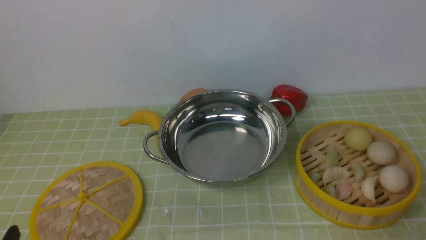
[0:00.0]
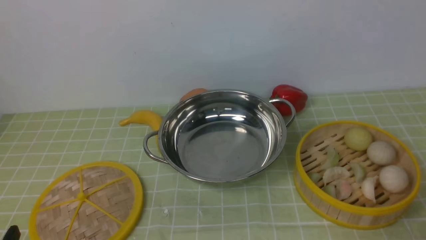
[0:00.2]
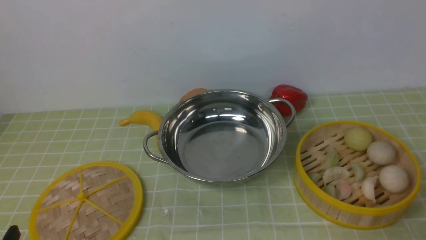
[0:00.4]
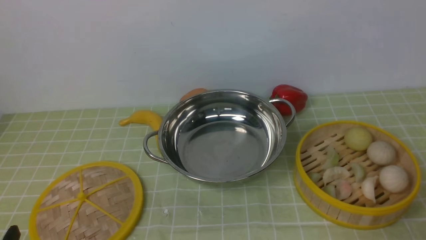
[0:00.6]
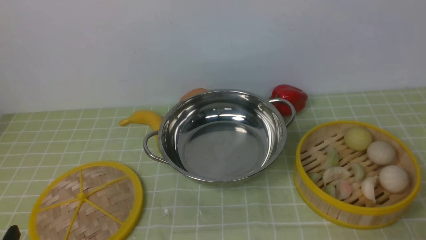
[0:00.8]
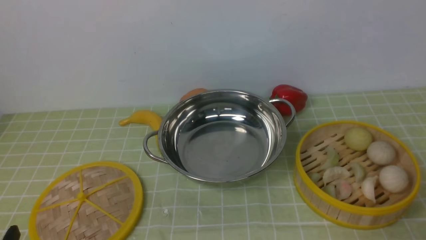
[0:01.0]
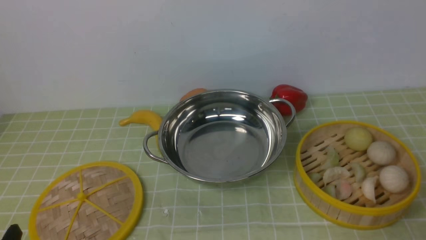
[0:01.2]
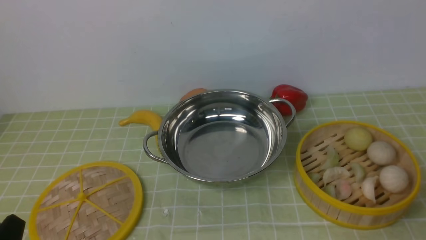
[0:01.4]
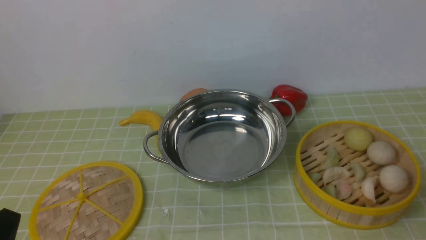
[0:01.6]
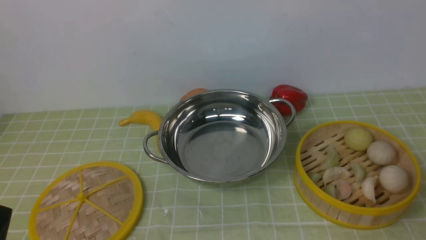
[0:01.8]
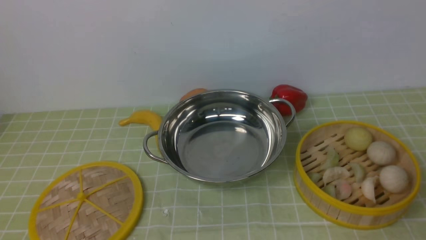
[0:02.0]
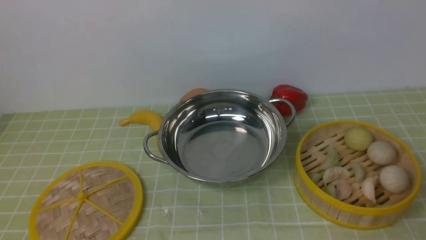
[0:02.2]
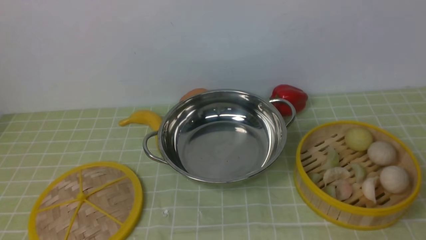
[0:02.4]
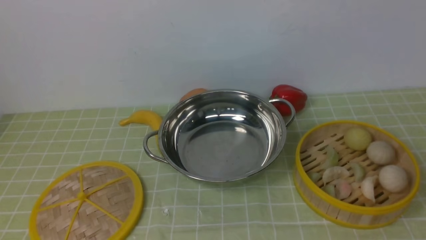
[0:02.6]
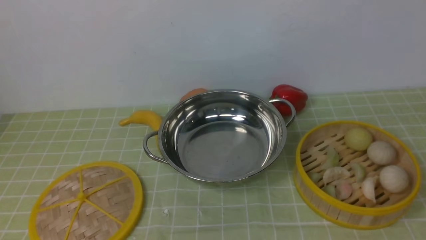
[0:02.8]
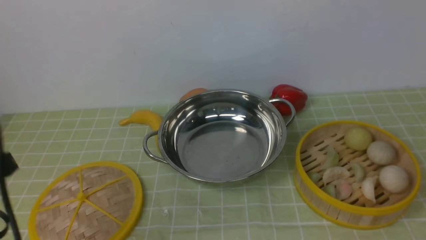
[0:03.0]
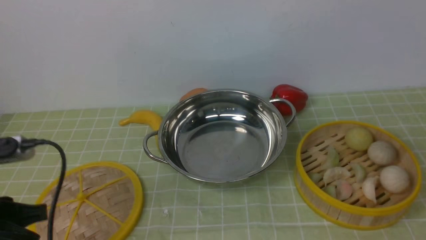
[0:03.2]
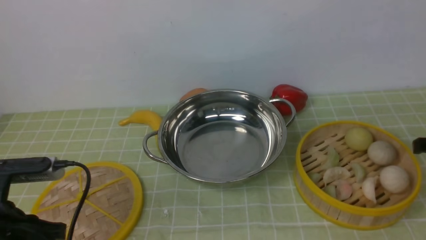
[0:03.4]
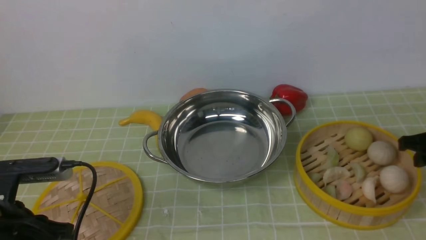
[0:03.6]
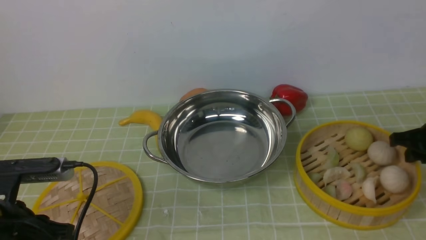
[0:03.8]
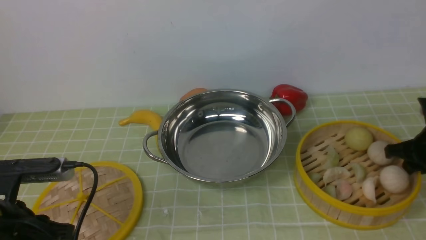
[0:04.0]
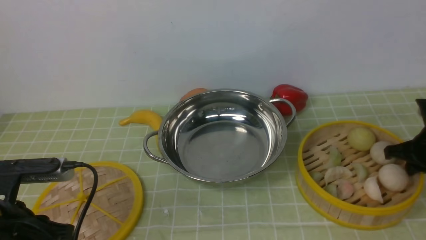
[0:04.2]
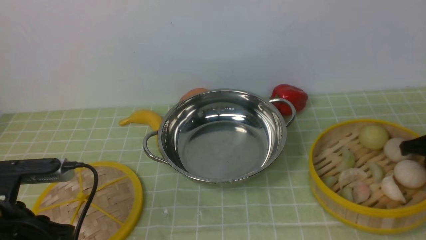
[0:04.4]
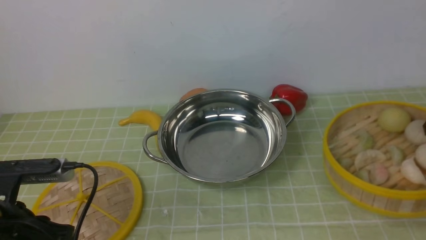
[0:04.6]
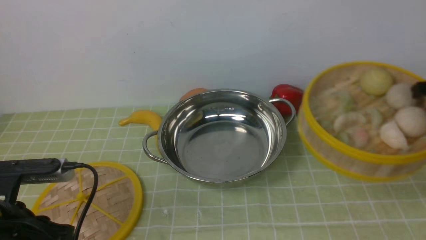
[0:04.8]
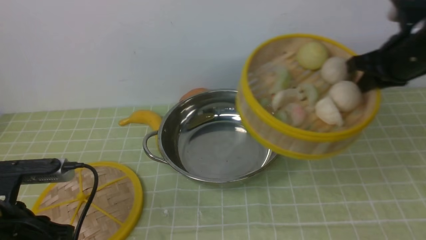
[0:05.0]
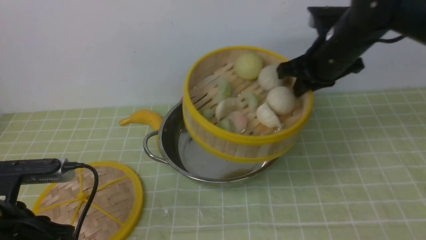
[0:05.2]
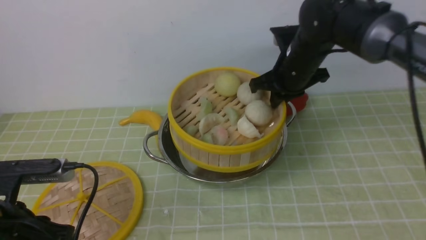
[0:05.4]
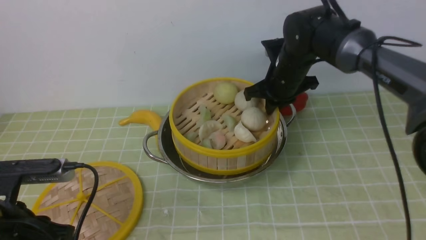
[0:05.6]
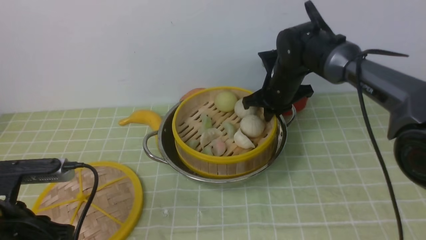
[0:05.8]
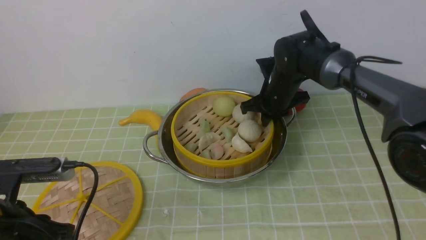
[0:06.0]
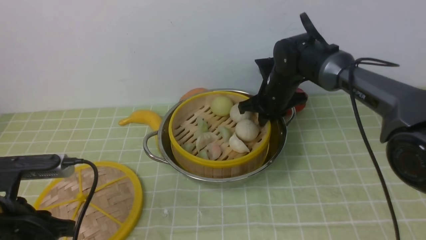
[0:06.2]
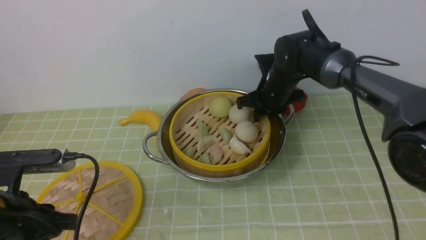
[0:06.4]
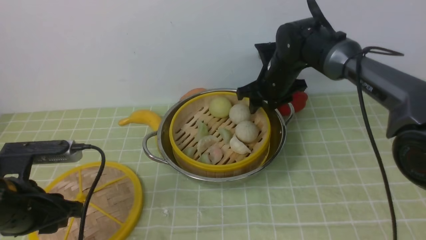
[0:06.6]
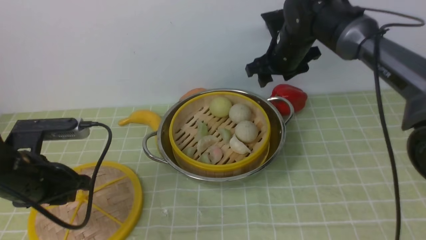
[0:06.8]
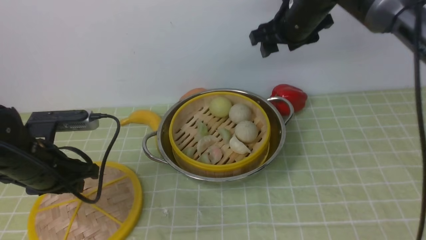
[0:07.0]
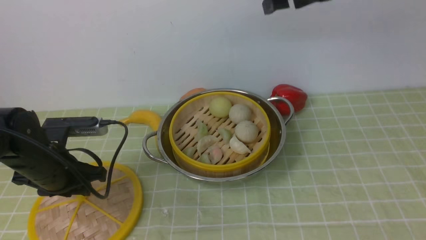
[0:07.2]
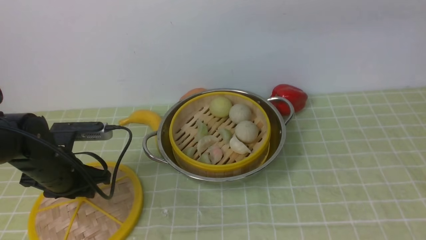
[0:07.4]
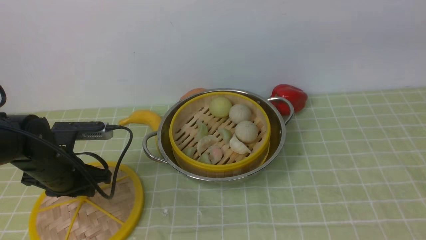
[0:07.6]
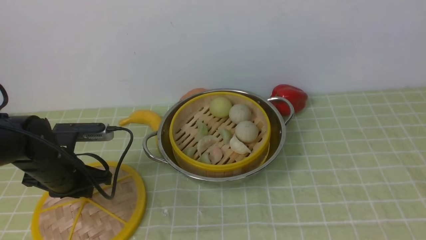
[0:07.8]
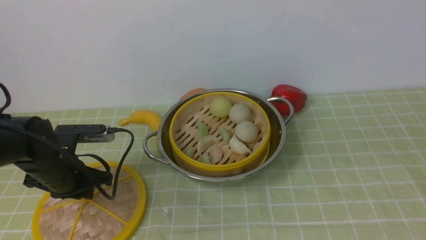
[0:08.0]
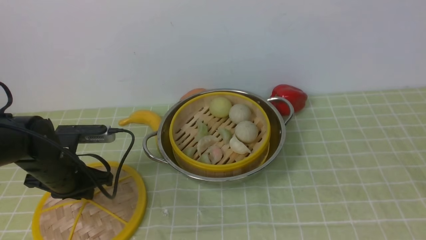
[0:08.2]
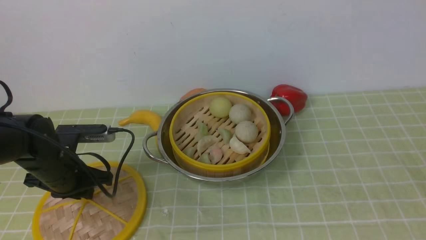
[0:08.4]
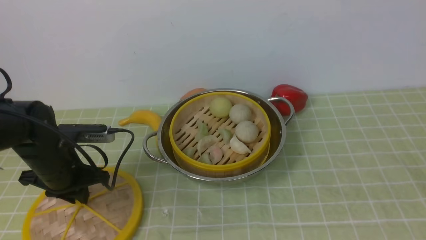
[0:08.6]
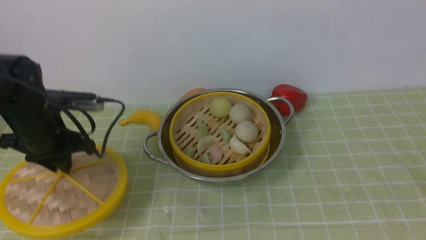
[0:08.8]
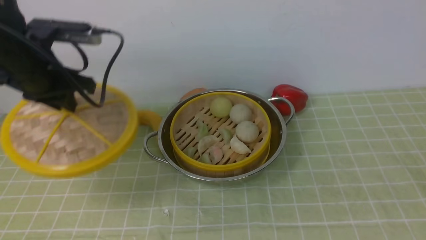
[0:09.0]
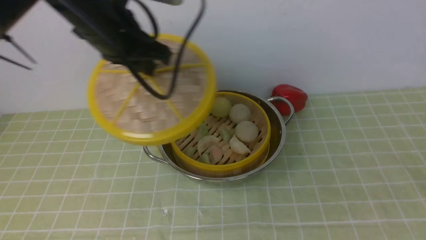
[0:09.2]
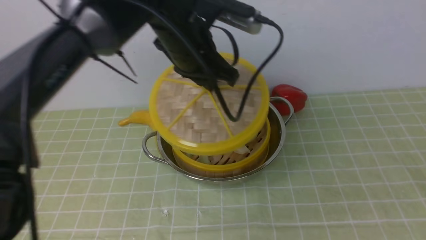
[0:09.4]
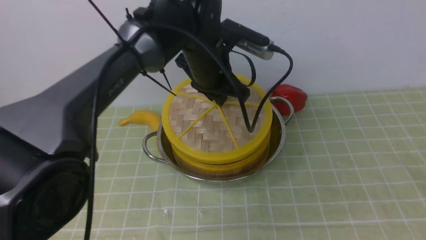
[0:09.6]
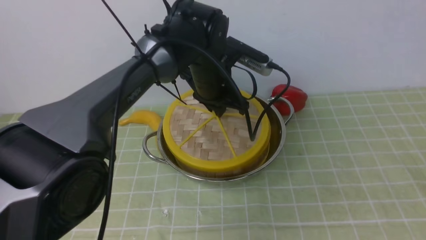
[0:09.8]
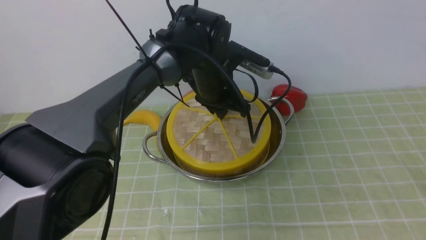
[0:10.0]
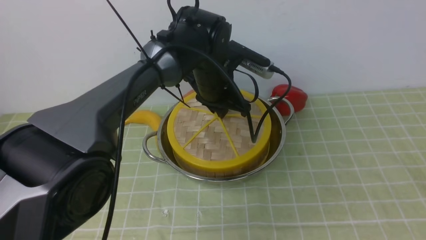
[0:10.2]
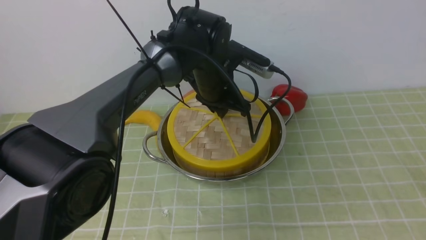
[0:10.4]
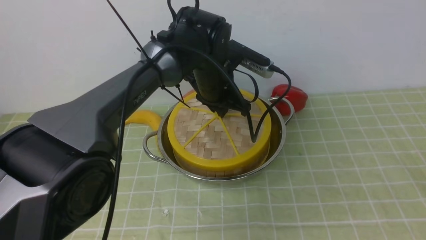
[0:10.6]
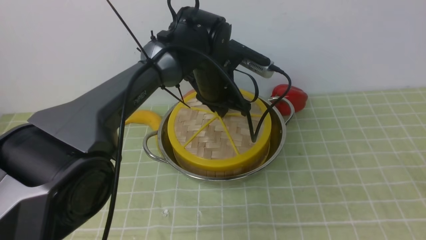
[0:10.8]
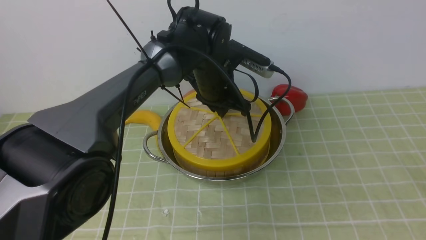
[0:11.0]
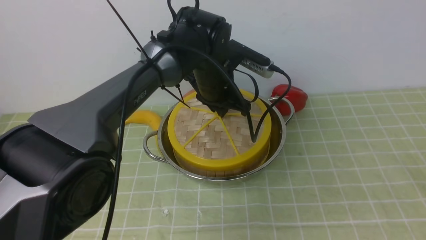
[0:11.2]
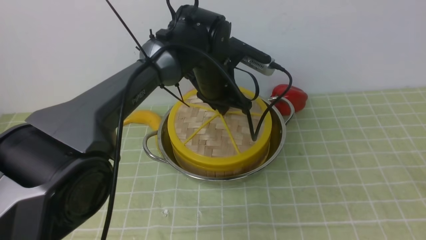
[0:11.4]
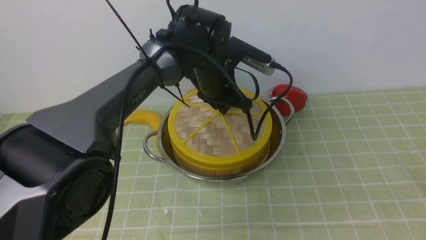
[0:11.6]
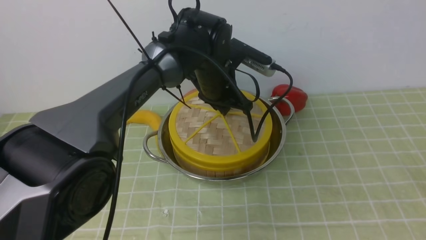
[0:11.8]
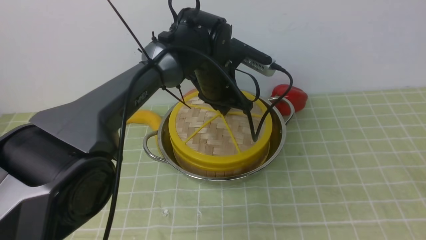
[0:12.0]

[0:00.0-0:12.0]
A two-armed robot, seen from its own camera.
Task of the whole recording: place the steamer in the pot on the green tablecloth, and put the lid on the steamer.
Step, 0:00.0 to 0:04.8: use the left arm to lift the steamer closest to it.
Step, 0:05.0 to 0:07.0: use the left arm to put the steamer into the iron steamer pot in the middle.
Step, 0:07.2 to 0:09.0: use the right arm to lift the lid of the steamer.
0:01.6 to 0:03.0: The left gripper moves upward and forward, roughly 15 cm.
0:03.0 to 0:04.4: The right gripper is displaced forward and downward by roughly 20 cm, and closes; the left gripper is displaced downward by about 5 cm.
0:04.4 to 0:06.0: The right gripper heads to the left and forward, covering some 30 cm.
0:06.0 to 0:07.6: The right gripper is displaced upward and backward by some 40 cm, and opens, while the left gripper heads forward and downward, covering about 15 cm.
0:07.6 to 0:09.0: The right gripper shifts some 30 cm backward, downward and to the right, and closes up. Meanwhile the left gripper travels upward by some 15 cm.
0:09.0 to 0:10.4: The left gripper heads to the right and downward, covering roughly 20 cm.
0:10.4 to 0:12.0: Neither gripper changes place.

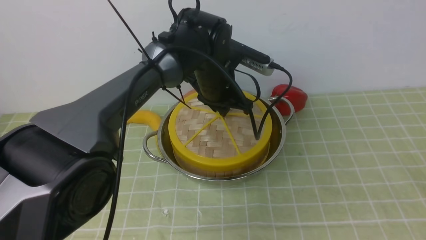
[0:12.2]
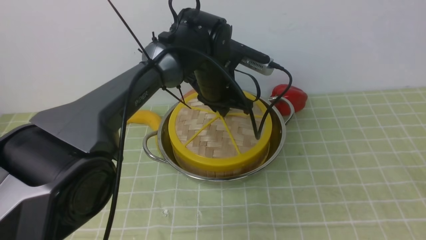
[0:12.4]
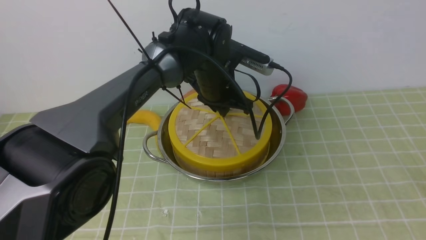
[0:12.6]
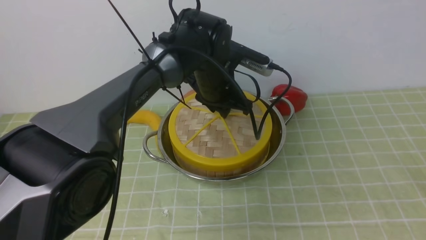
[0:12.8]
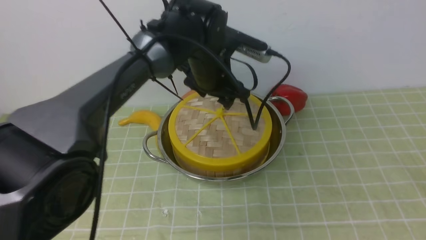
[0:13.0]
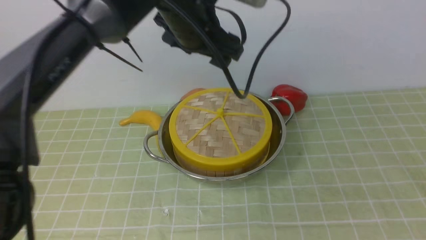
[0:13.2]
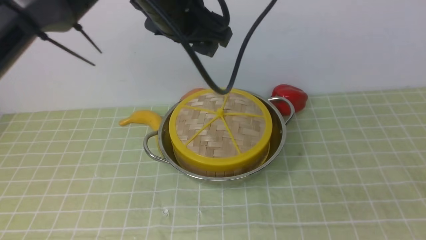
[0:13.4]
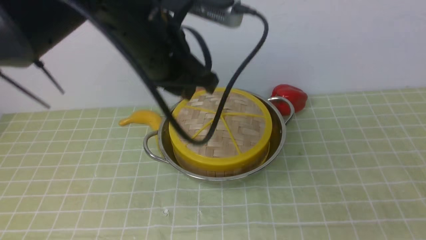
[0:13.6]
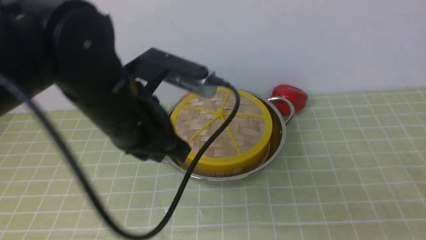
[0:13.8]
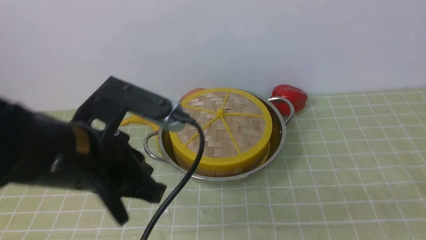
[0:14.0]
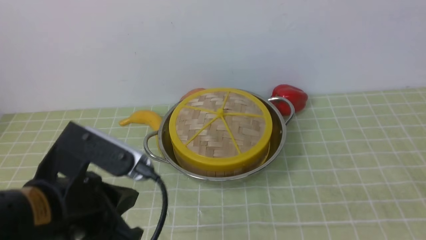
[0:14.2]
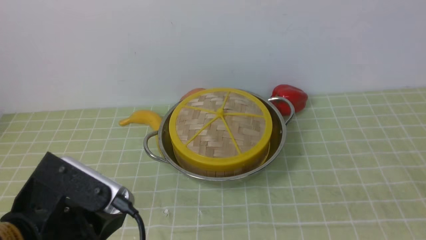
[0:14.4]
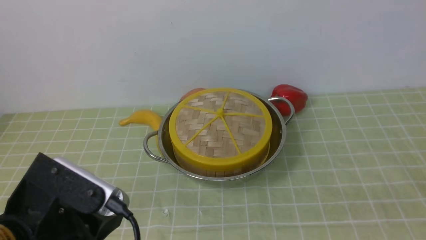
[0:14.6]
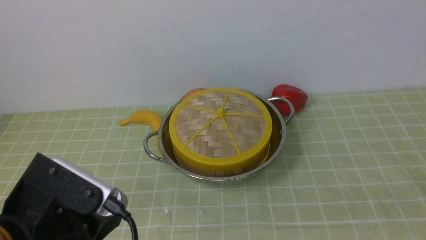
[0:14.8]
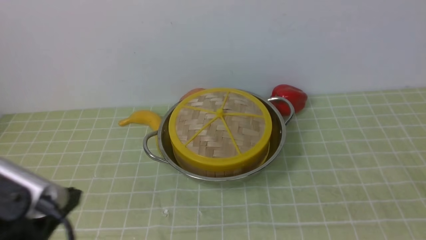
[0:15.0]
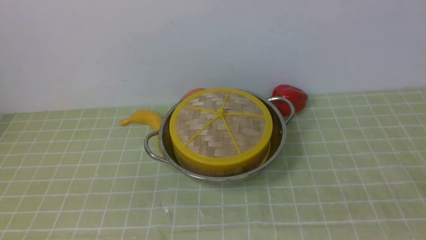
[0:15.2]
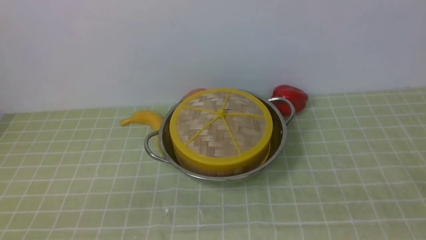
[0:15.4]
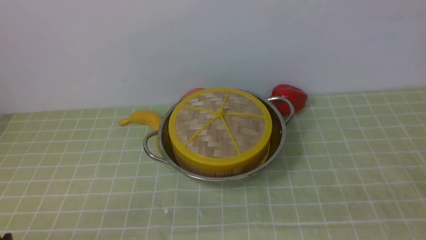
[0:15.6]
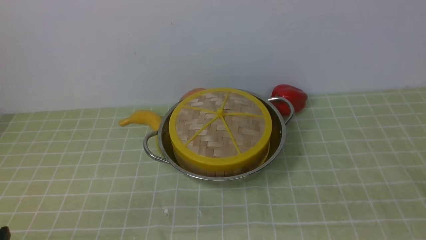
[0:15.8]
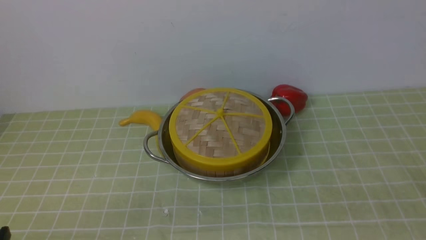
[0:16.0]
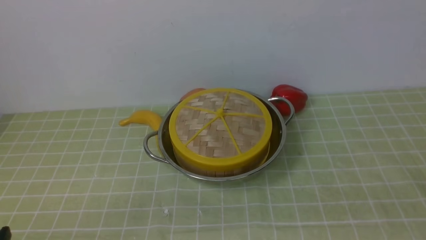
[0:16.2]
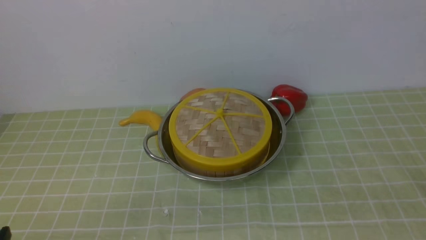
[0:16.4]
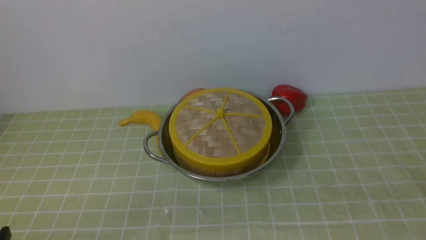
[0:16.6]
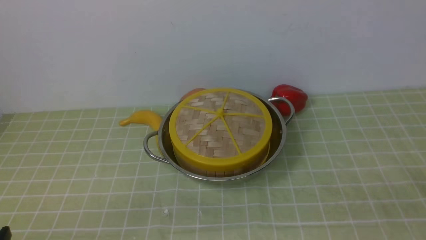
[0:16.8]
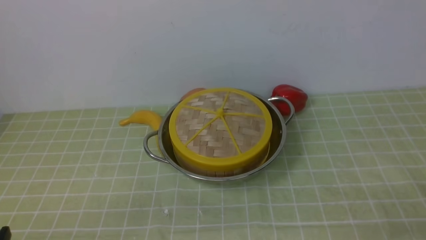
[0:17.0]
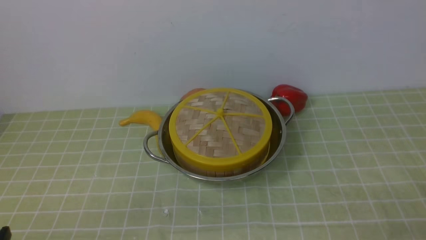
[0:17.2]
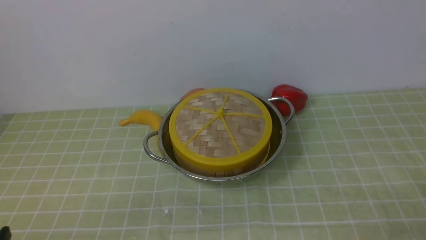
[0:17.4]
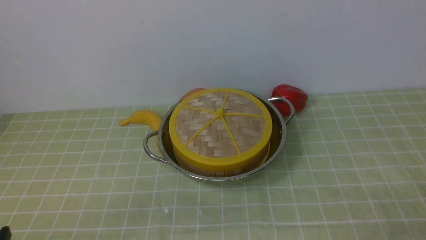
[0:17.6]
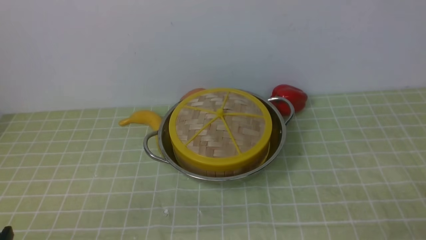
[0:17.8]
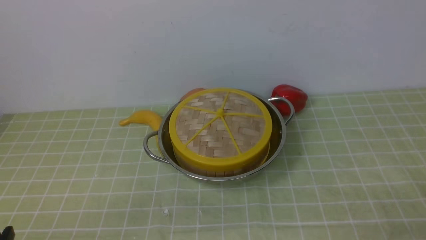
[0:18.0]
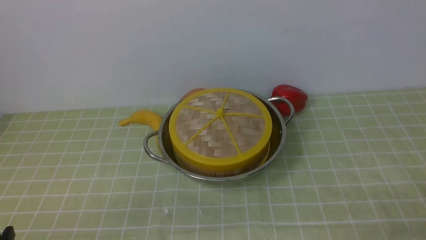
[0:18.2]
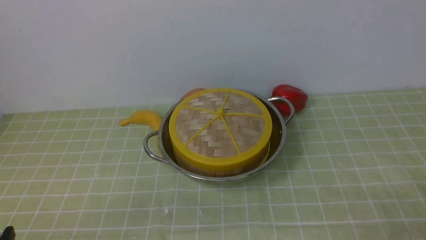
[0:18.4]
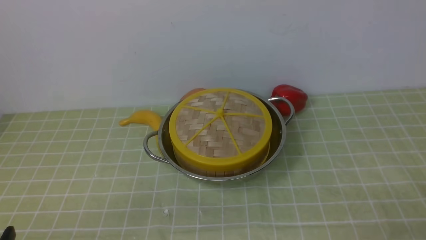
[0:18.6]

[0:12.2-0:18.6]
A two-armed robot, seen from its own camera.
Task of the whole recording: place the steamer in the pot on the green tablecloth, and put the lid on the steamer.
0:12.2 to 0:13.8: The right gripper goes roughly 10 cm downward, while the left gripper moves backward, upward and to the left, approximately 25 cm, and opens and closes again.
0:13.8 to 0:15.4: The right gripper closes up. Meanwhile the left gripper is displaced backward, to the left and downward by about 25 cm.
0:17.0 to 0:18.6: Both grippers stay about where they are.
